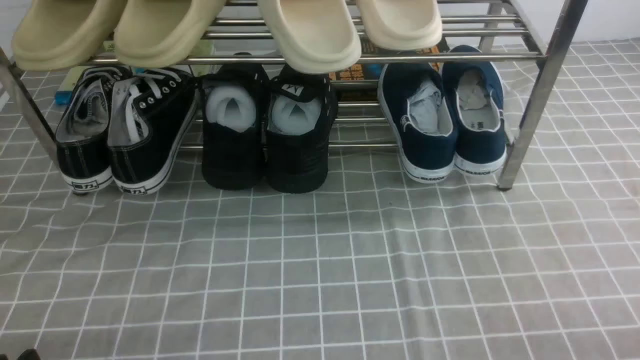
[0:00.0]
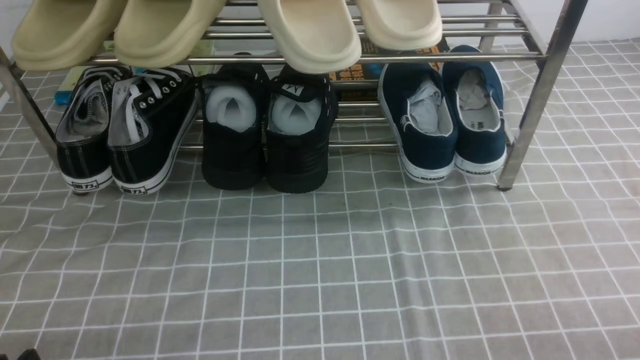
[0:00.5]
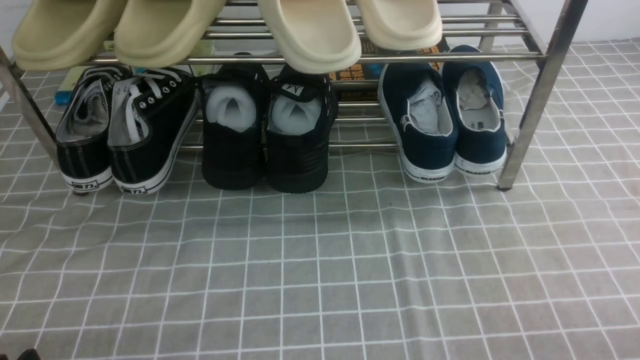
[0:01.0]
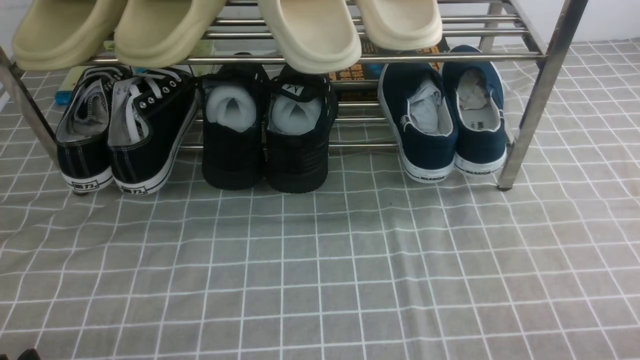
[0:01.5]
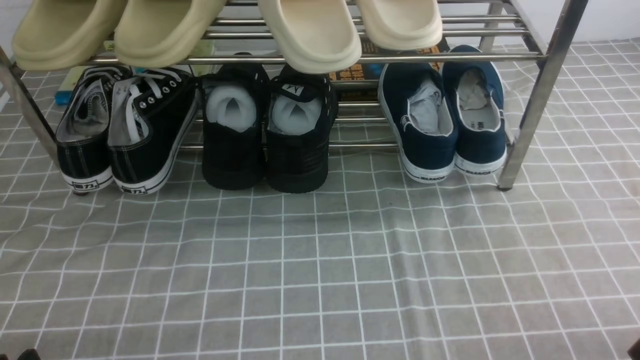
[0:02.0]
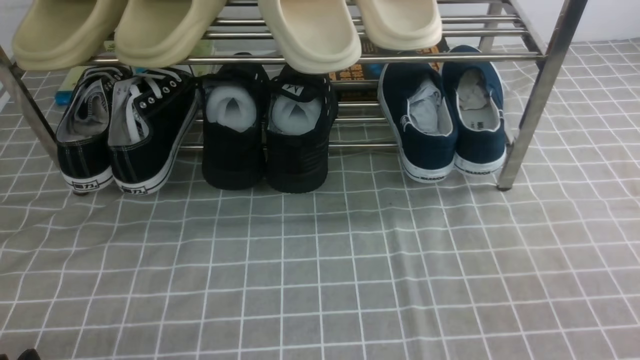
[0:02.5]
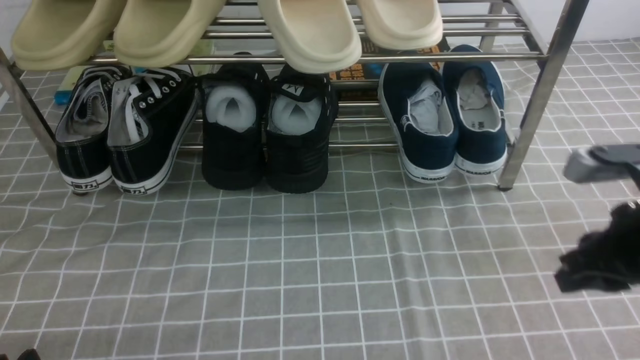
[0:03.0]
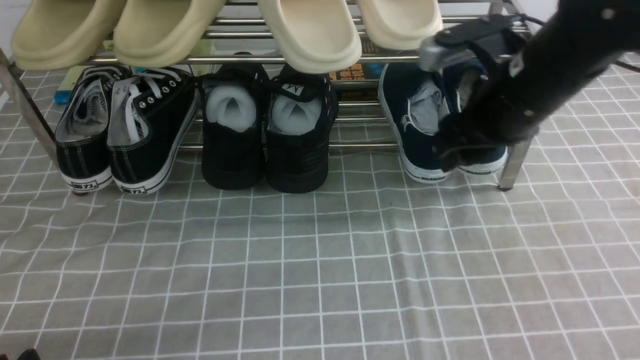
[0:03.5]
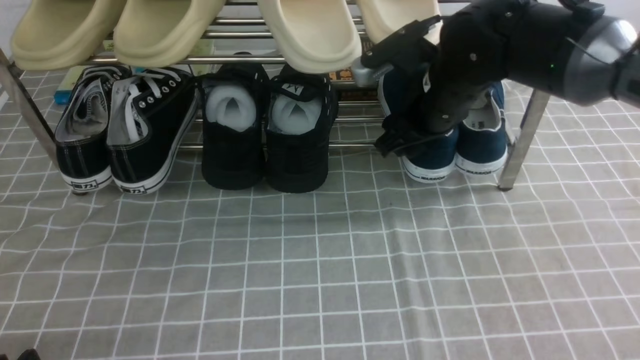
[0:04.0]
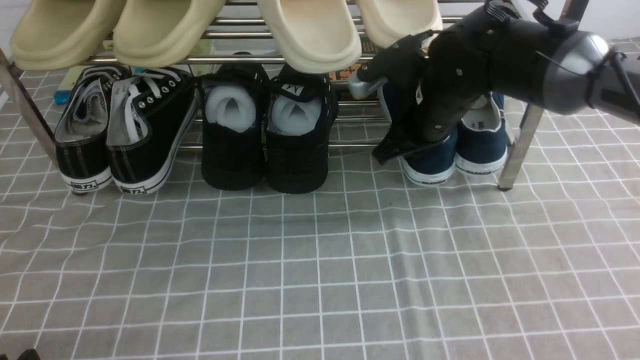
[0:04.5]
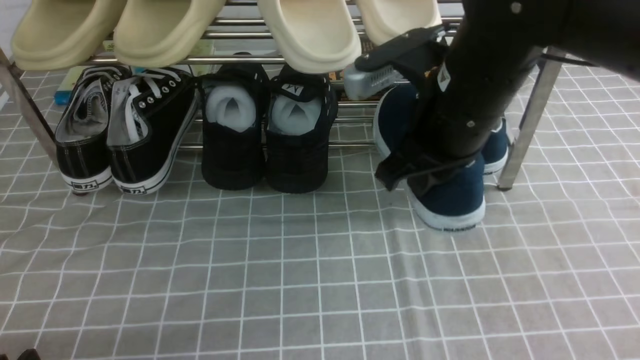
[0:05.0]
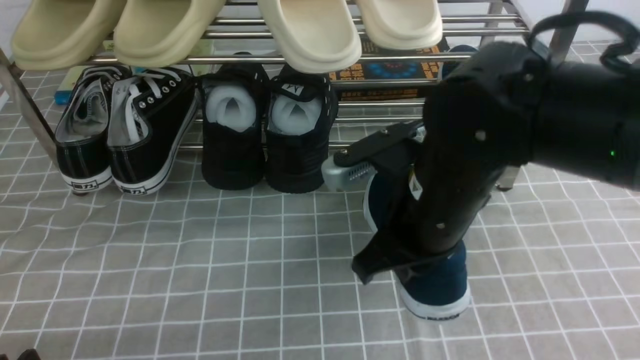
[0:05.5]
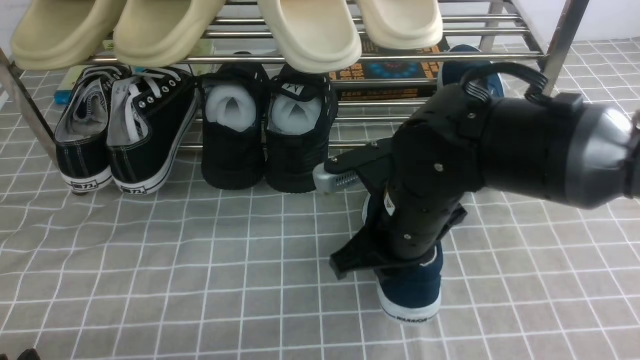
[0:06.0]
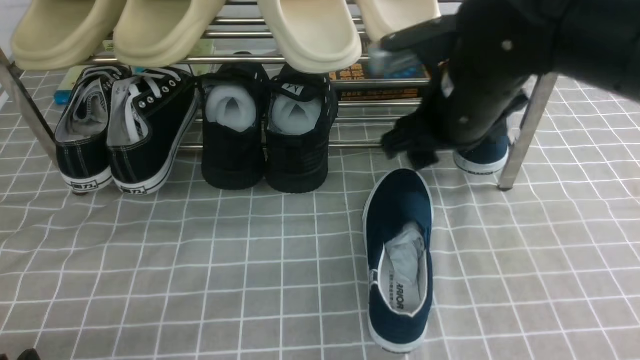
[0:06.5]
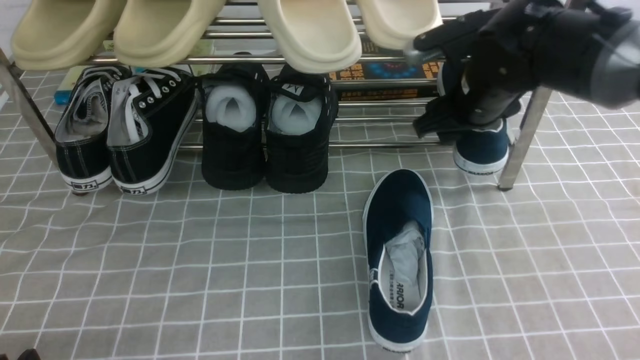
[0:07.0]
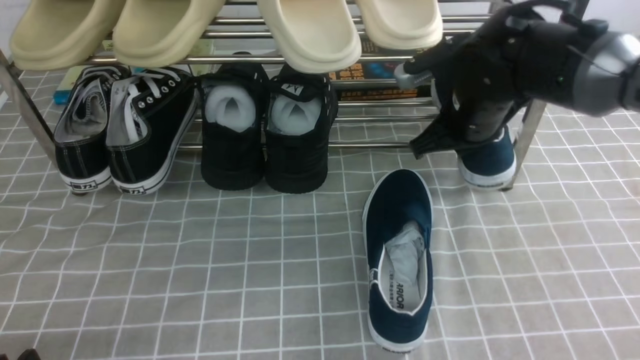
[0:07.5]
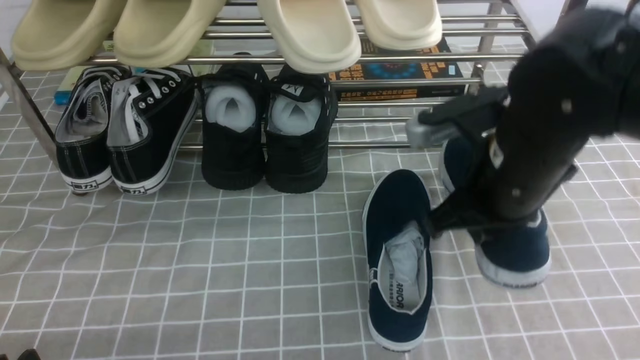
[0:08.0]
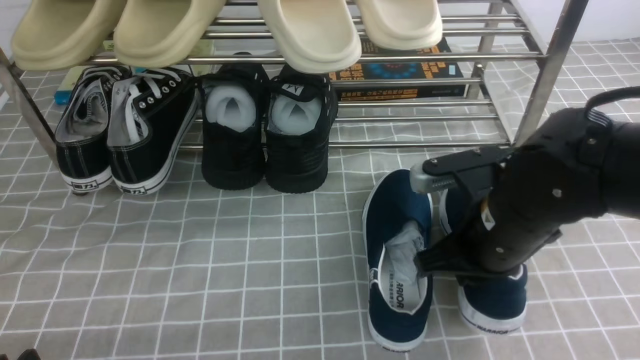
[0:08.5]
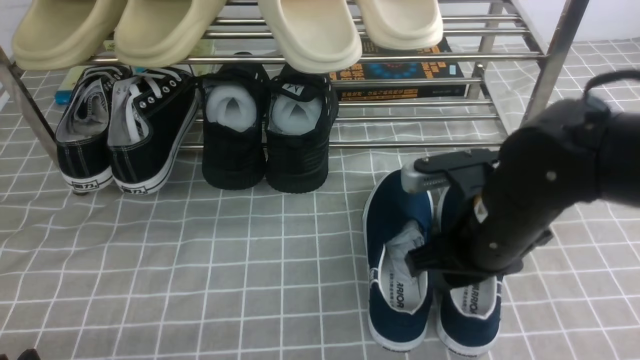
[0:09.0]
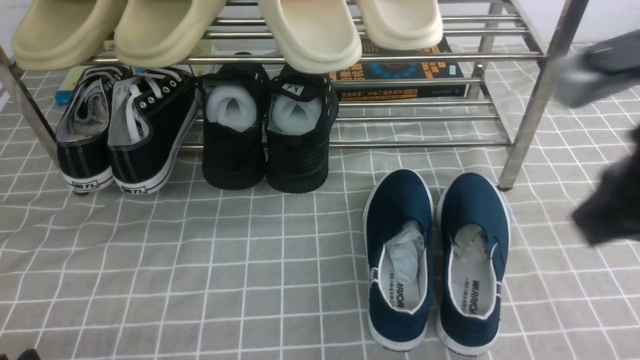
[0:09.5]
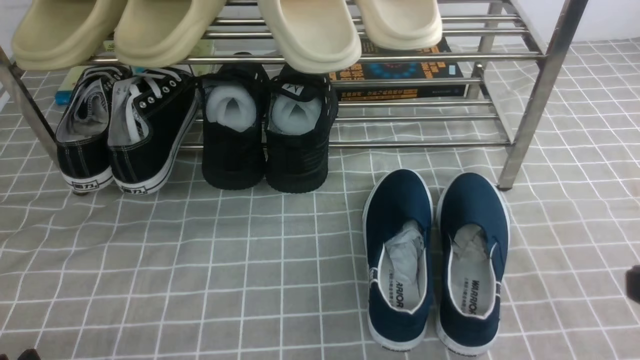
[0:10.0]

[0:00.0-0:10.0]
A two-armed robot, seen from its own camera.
Step, 0:00.0 to 0:04.5: use the right arm to clamp a shoe on the right side of the shoe rack.
Step, 0:05.0 to 0:06.0: use the right arm to take out the clamped shoe from the shoe rack and put it down.
Step, 0:07.0 to 0:07.5: use the right arm to clamp a shoe on the right side of the shoe rack.
Step, 0:08.0 to 0:09.0: use the right arm to take out the clamped shoe from the shoe rack and put it down.
0:02.0 to 0:04.0: The right gripper goes approximately 40 cm forward and to the left, and opens.
0:04.0 to 0:06.0: The right gripper goes some 10 cm backward, and closes.
0:06.0 to 0:08.0: The right gripper is displaced to the right by about 10 cm, reaches about 15 cm forward, then returns, and opens, then closes once more.
0:08.0 to 0:10.0: The right gripper travels backward and to the right by about 20 cm, and opens, then closes once more.

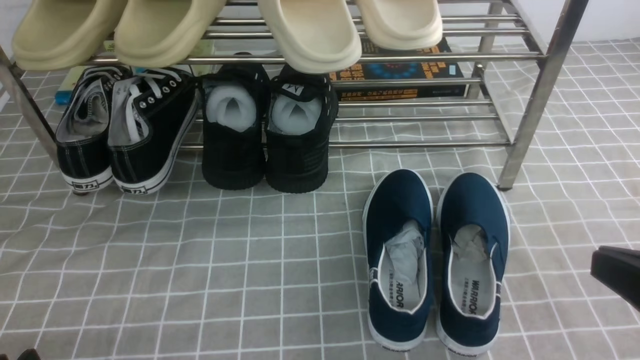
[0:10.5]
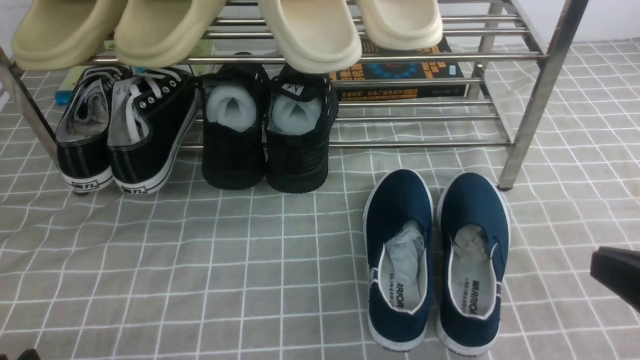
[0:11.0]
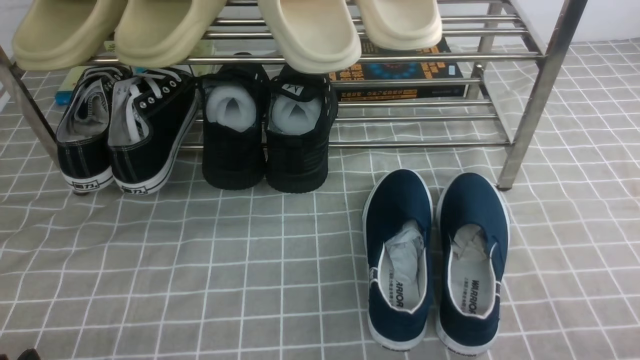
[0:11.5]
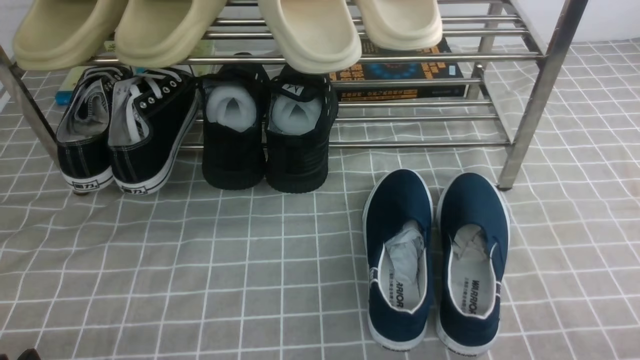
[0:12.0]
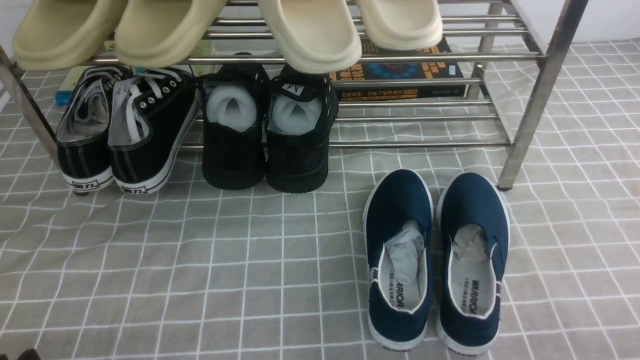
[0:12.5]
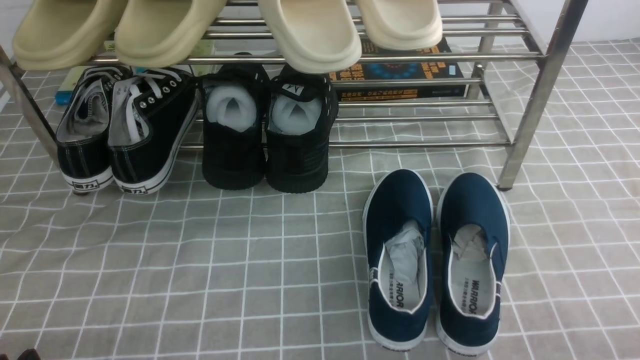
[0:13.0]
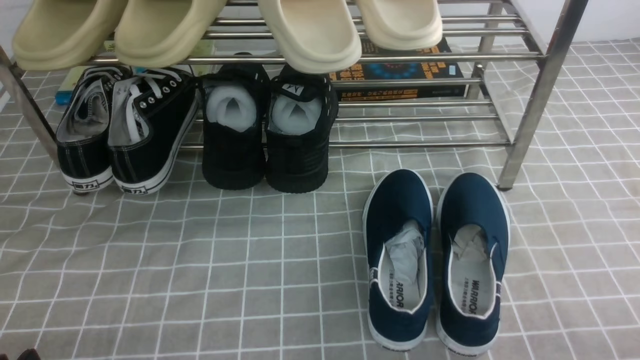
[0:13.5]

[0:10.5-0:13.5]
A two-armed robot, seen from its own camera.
0:10.5 to 0:12.0: The right gripper heads downward and to the right, covering about 15 cm.
0:12.0 to 0:13.5: The two grippers keep their place.

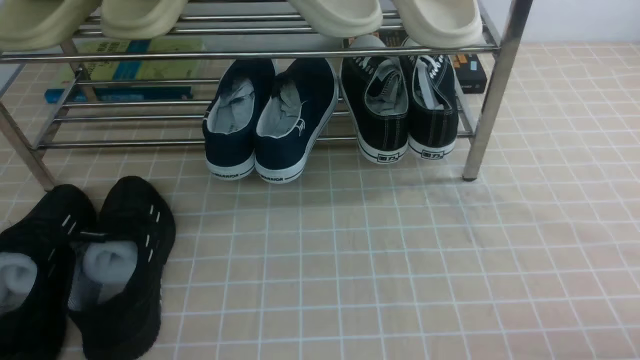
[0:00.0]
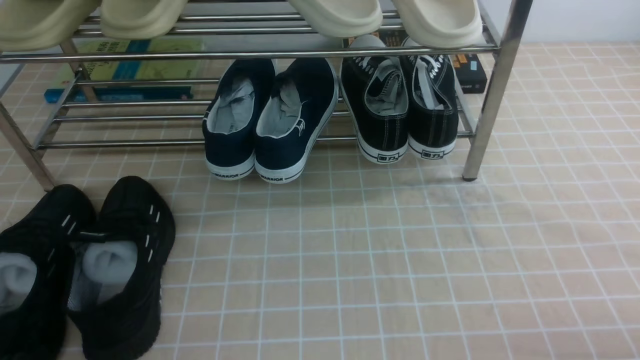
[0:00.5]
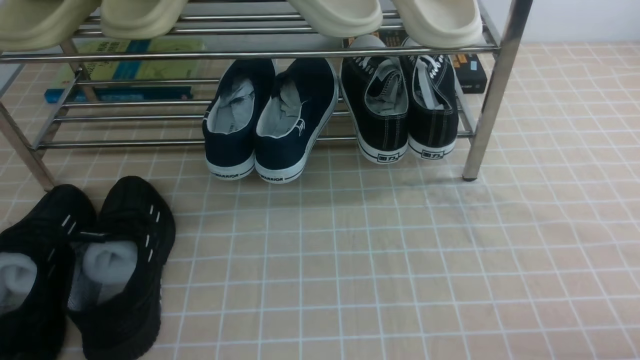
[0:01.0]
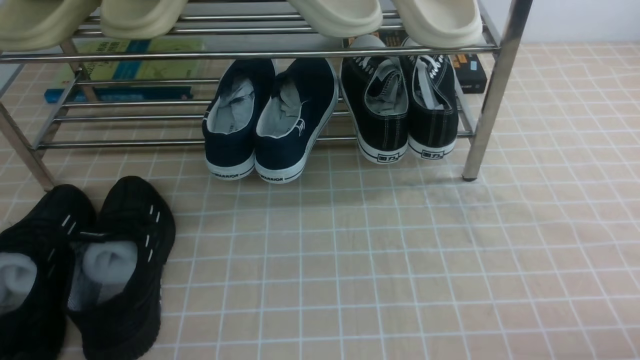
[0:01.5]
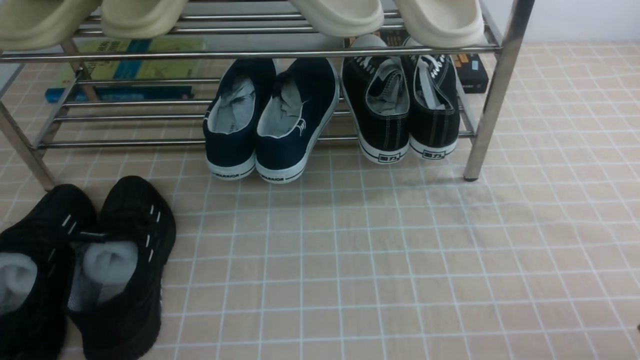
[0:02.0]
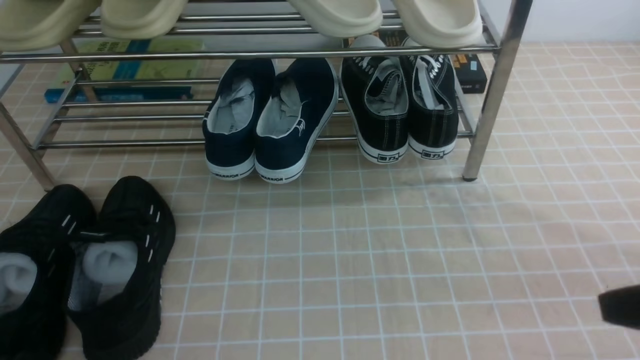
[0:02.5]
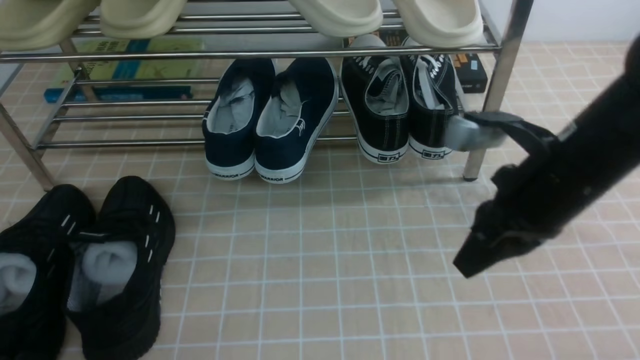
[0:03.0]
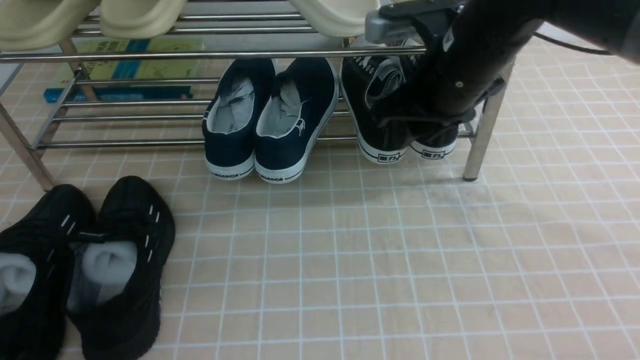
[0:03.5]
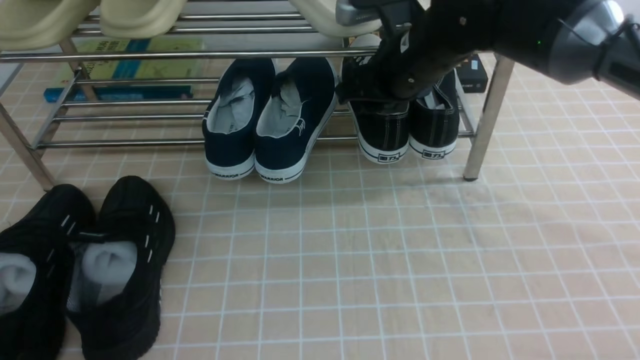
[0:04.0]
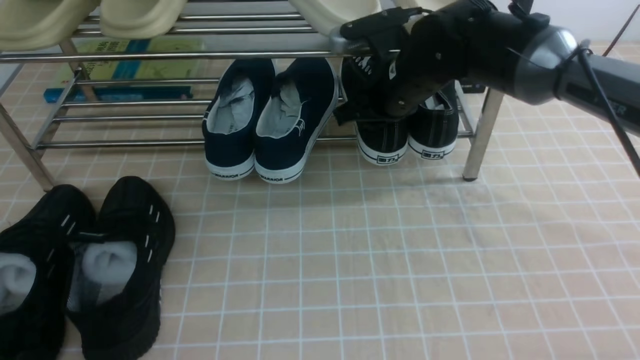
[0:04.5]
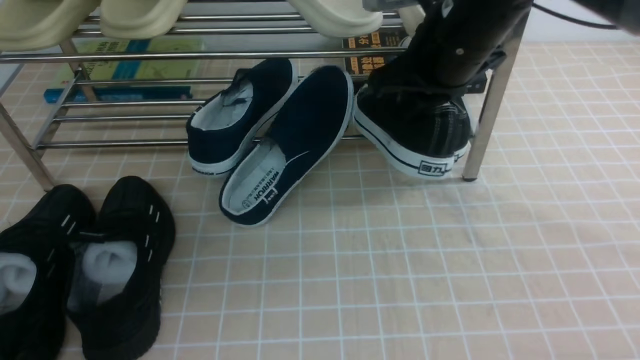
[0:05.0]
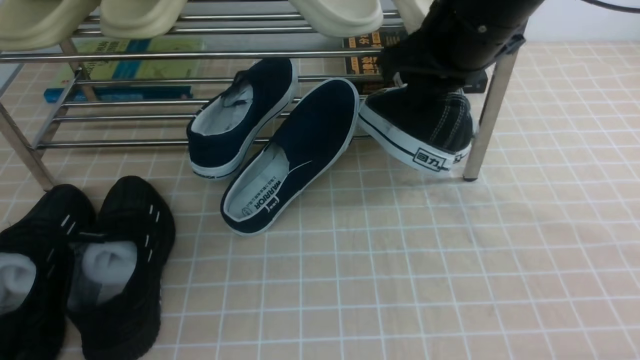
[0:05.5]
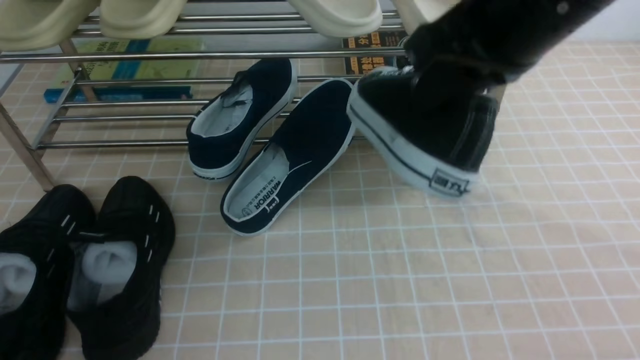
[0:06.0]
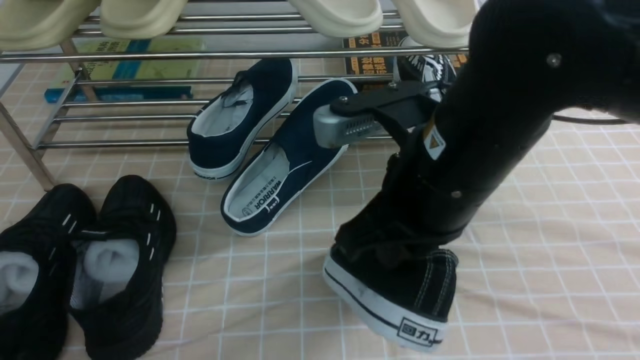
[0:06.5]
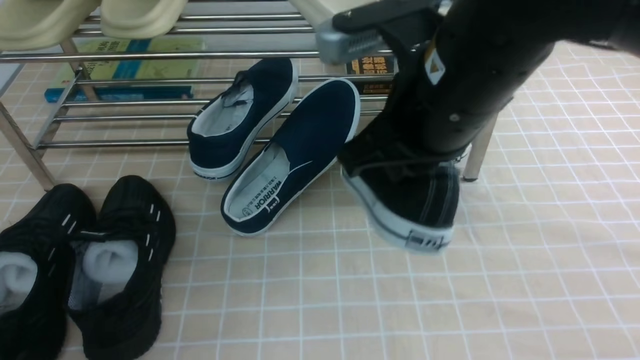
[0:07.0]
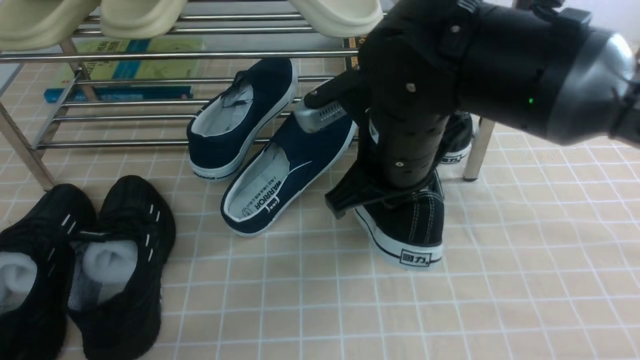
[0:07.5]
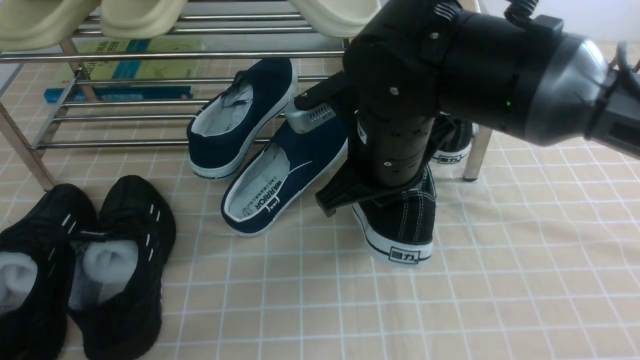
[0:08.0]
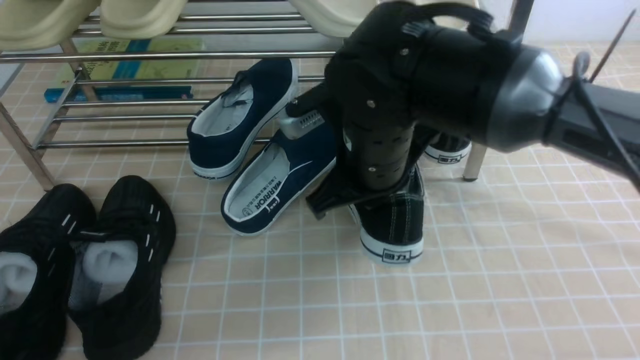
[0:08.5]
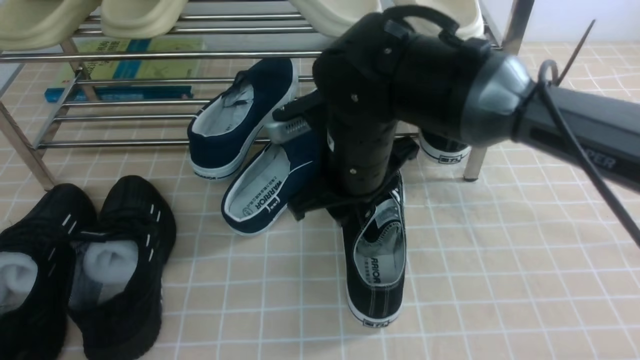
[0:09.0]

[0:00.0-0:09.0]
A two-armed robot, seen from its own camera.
Step, 0:00.0 to 0:04.5: use the right arm to clamp a shoe on the right side of the shoe rack.
Step, 0:05.0 to 0:08.5: use the right arm to take out the clamped shoe from the shoe rack and put it down.
0:00.0 to 0:02.0: The right gripper heads upward, covering approximately 5 cm.
0:02.0 to 0:04.5: The right gripper moves forward and to the left, about 40 cm, and closes and opens again; the left gripper opens its fingers.
0:04.5 to 0:07.0: The right gripper heads backward and upward, covering approximately 20 cm, and closes its fingers.
0:07.0 to 0:09.0: The right gripper heads downward and forward, covering about 10 cm, and opens.